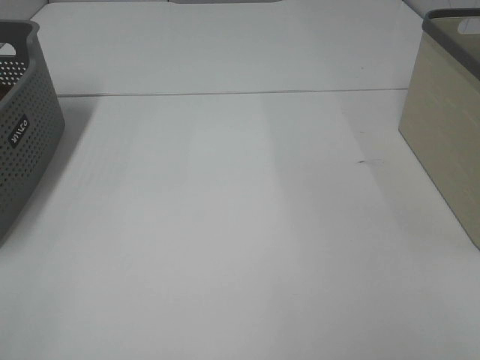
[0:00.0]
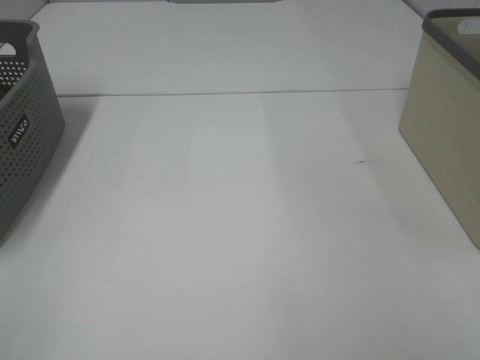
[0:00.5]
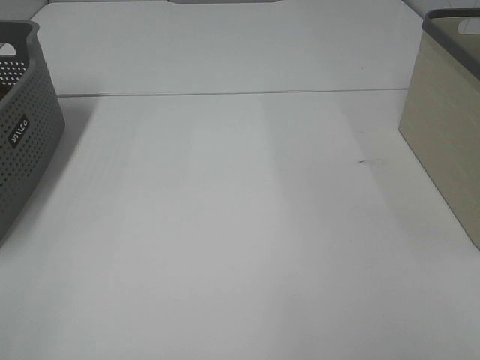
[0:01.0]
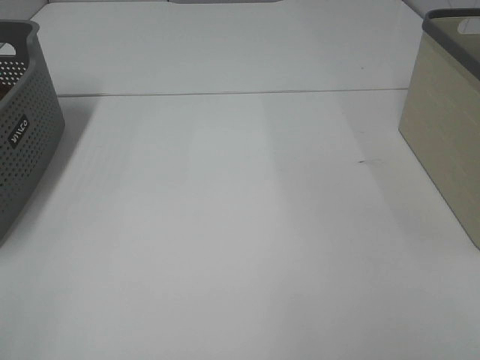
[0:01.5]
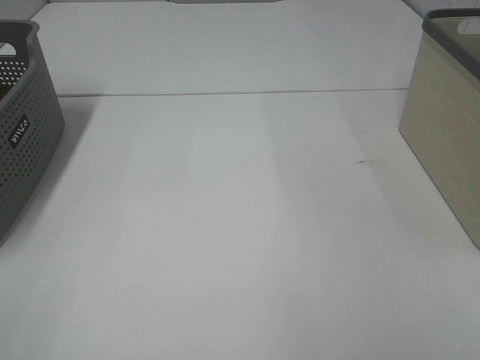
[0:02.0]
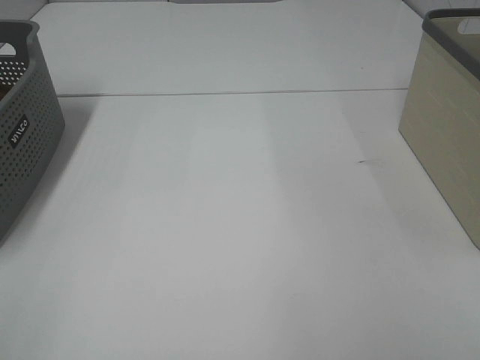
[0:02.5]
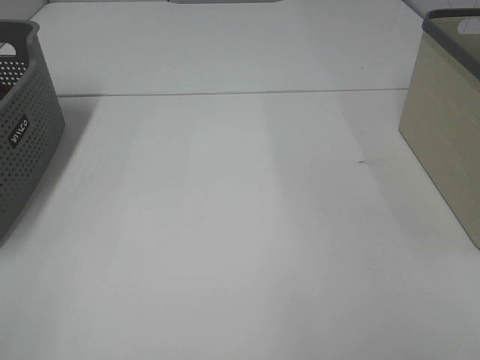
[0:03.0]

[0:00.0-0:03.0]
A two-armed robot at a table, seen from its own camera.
0:01.5 to 0:03.0: Both grippers stay about where they are.

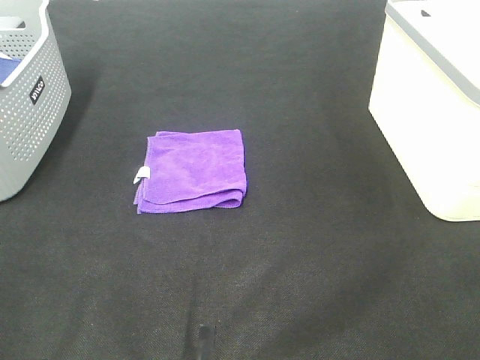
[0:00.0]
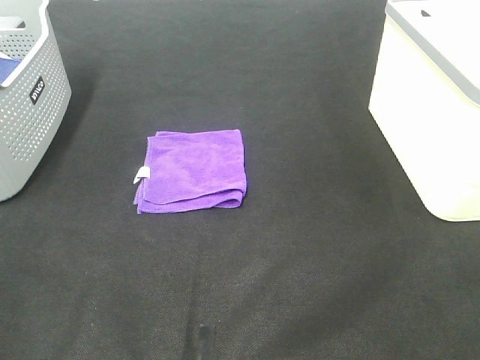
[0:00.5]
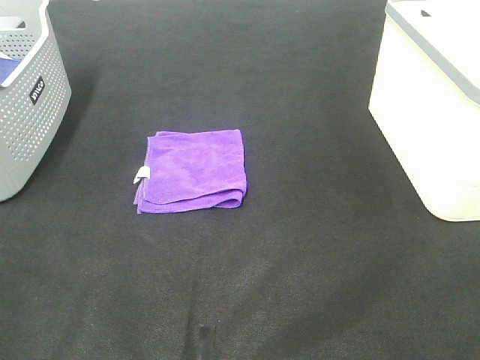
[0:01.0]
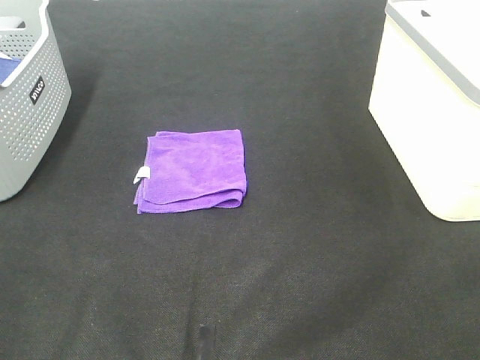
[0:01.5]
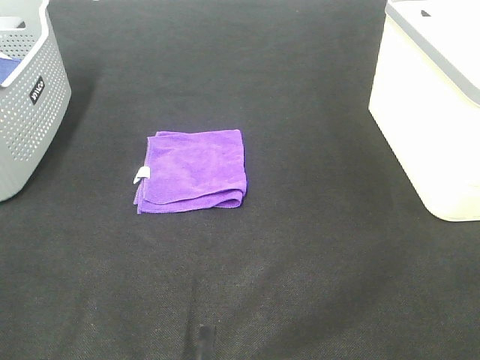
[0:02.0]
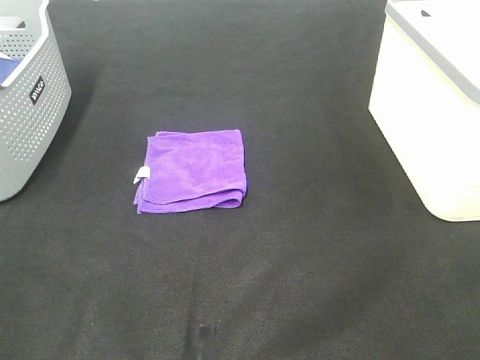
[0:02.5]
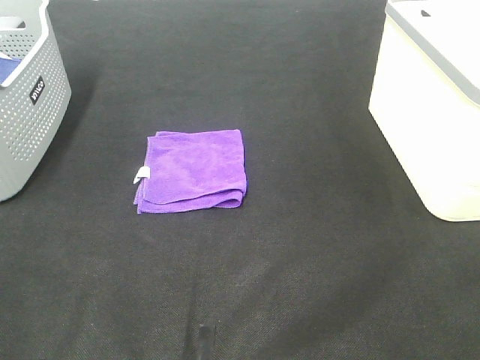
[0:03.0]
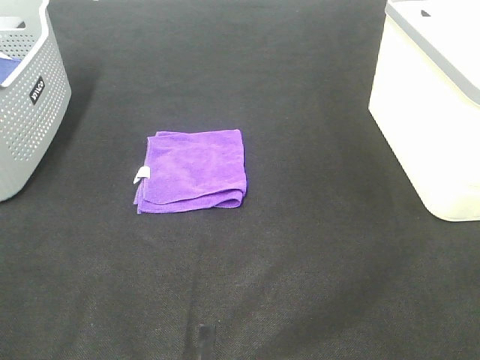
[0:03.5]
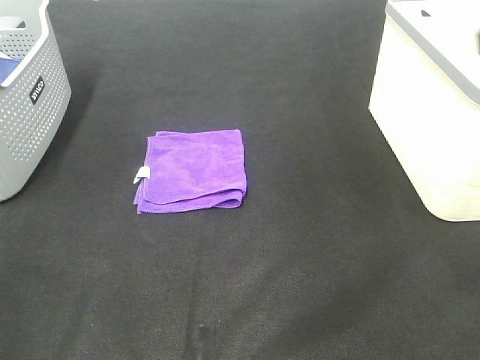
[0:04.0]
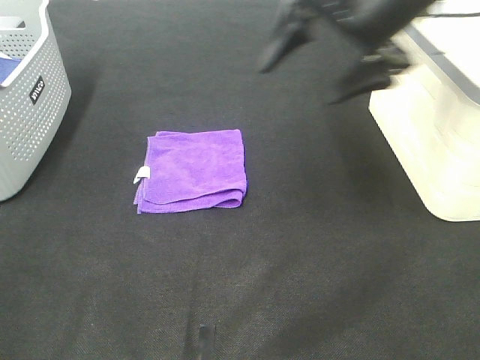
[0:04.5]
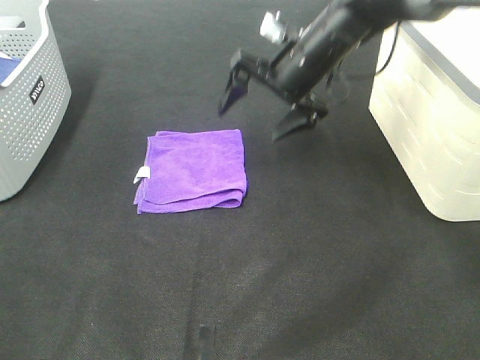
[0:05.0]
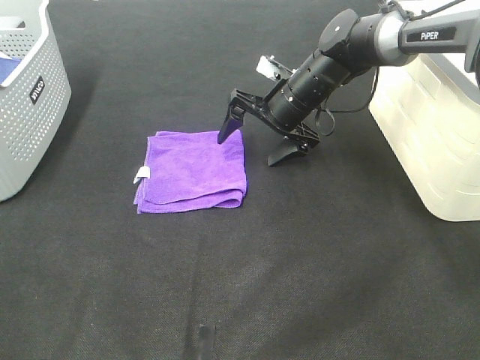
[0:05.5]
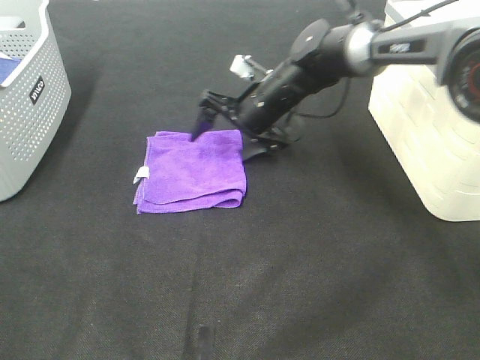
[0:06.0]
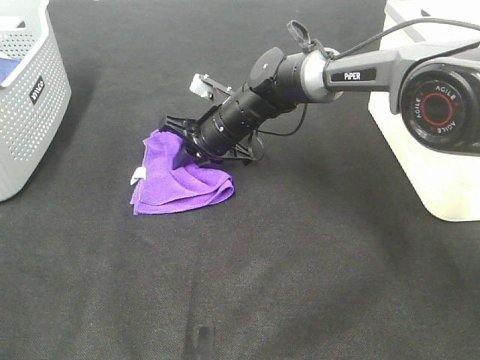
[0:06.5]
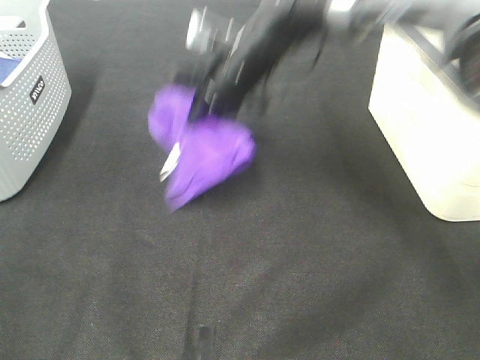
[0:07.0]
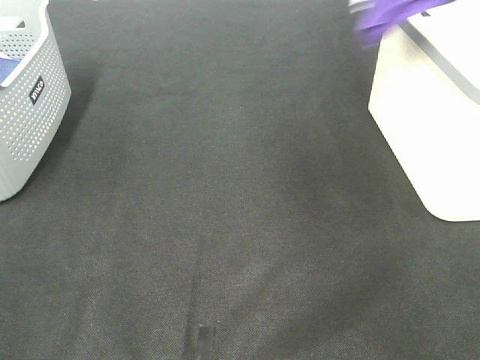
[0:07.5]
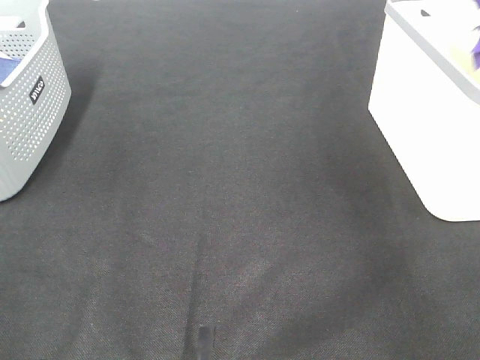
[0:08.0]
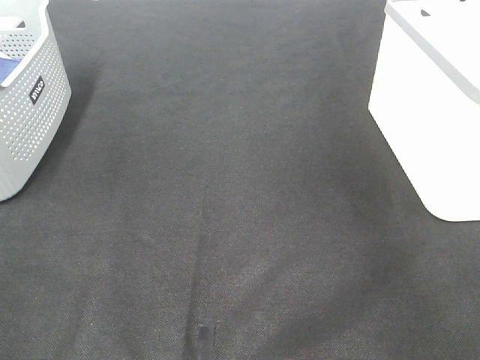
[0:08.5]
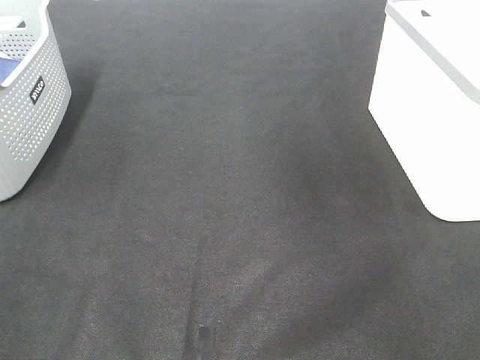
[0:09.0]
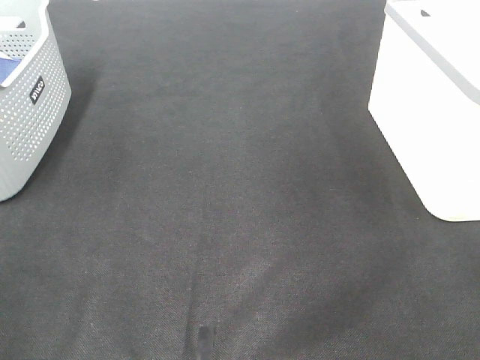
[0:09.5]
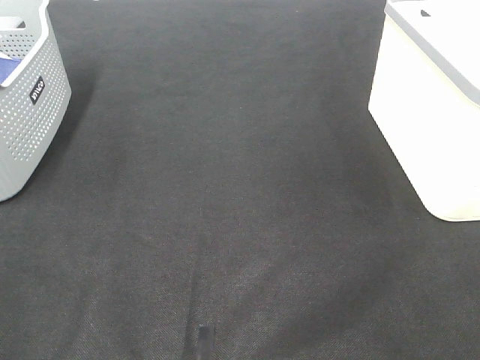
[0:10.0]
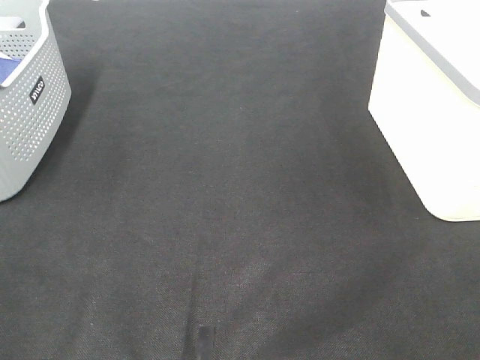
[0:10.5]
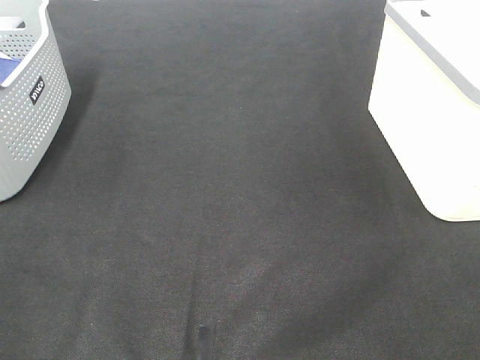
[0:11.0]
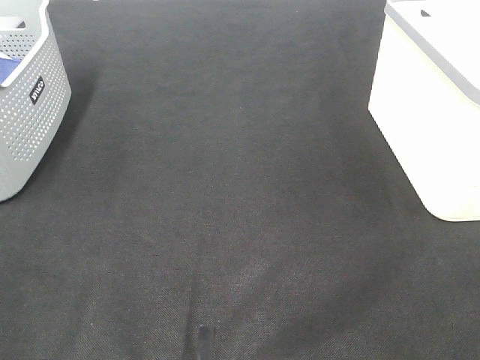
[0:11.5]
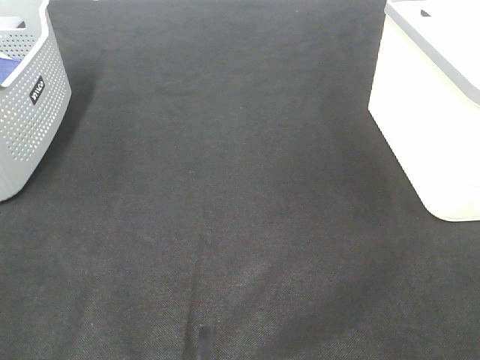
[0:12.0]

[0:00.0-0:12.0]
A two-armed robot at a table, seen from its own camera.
Step, 0:00.0 to 0:06.5: Right hand: grab the folded purple towel.
Step, 0:07.0 to 0:08.0: Right hand: place the purple towel in right basket.
0:04.0 to 0:06.0: The right gripper shifts approximately 40 cm downward, forward and to the left.
0:06.0 to 0:08.0: The right gripper travels to the right and upward by roughly 40 cm, and closes up.
